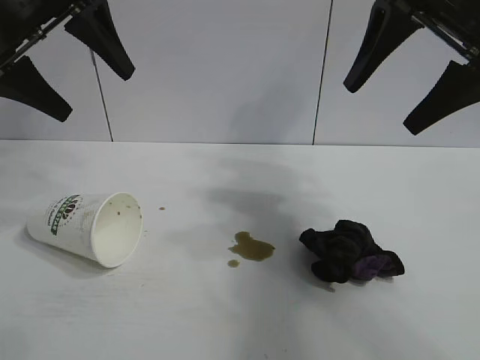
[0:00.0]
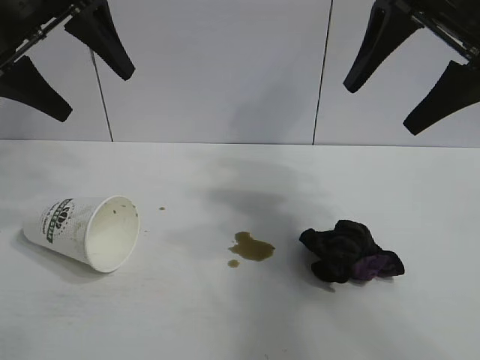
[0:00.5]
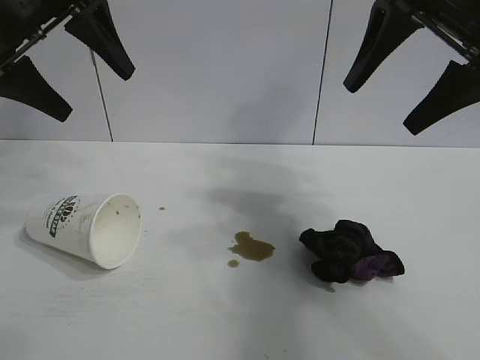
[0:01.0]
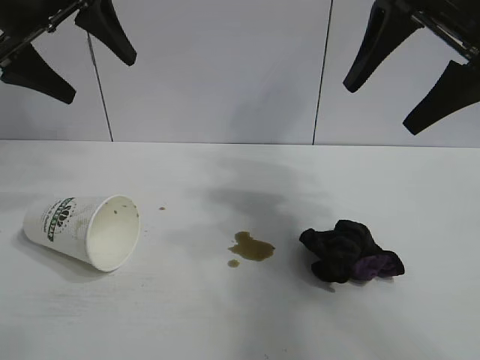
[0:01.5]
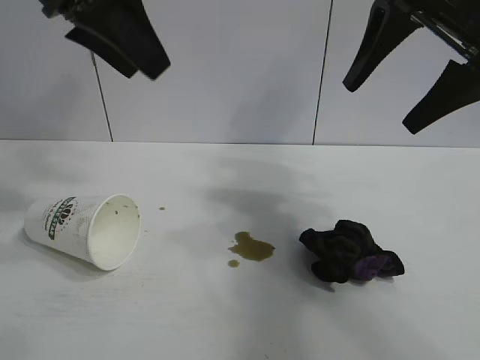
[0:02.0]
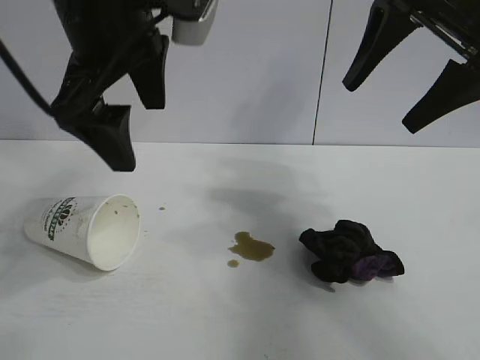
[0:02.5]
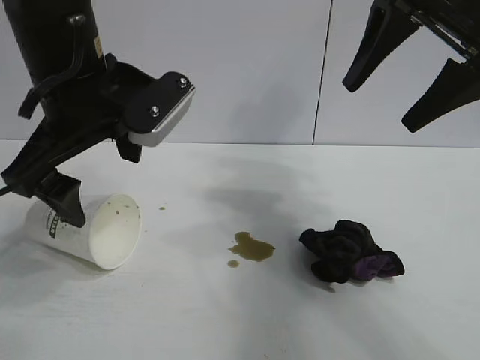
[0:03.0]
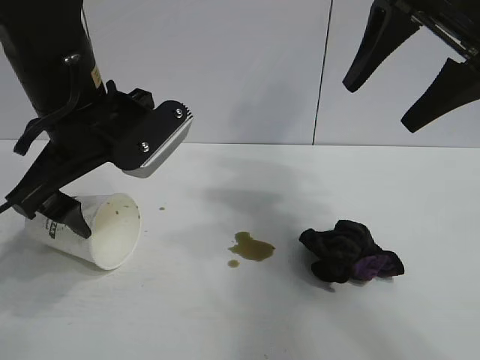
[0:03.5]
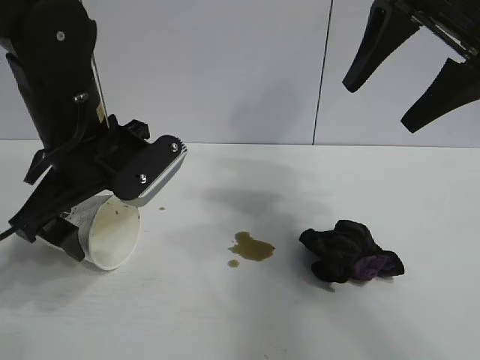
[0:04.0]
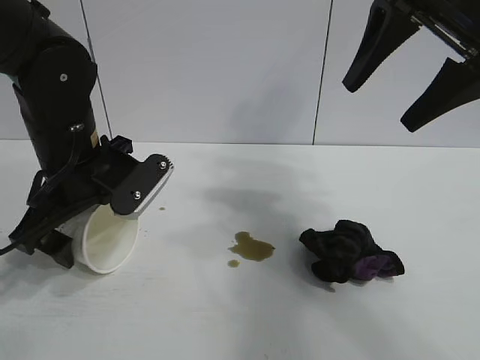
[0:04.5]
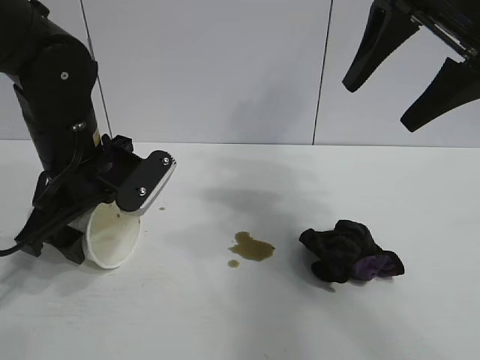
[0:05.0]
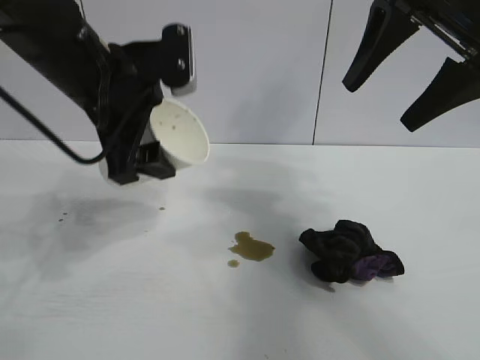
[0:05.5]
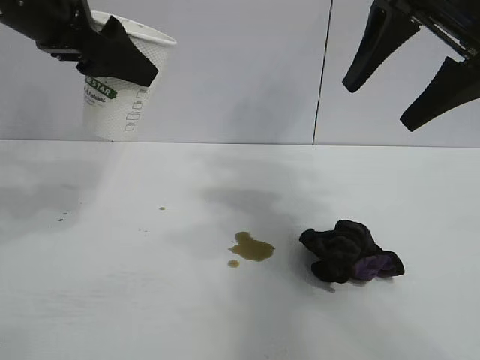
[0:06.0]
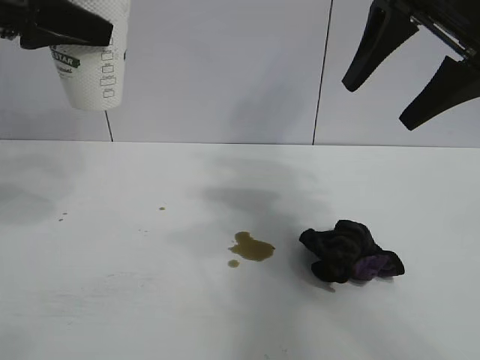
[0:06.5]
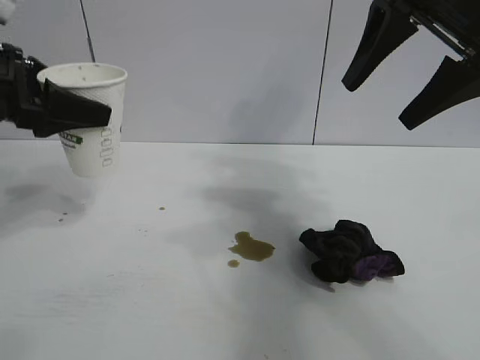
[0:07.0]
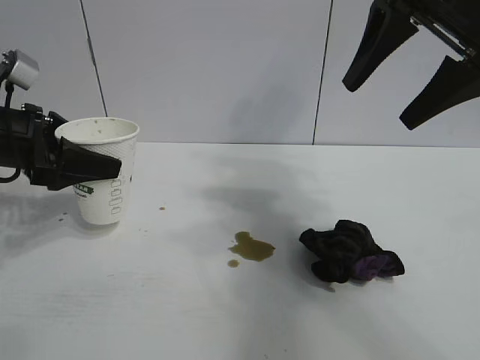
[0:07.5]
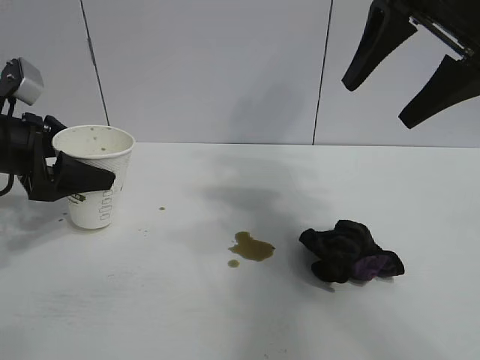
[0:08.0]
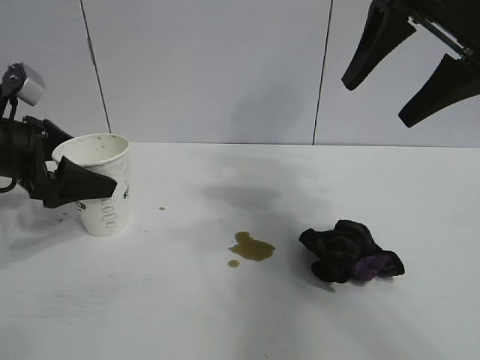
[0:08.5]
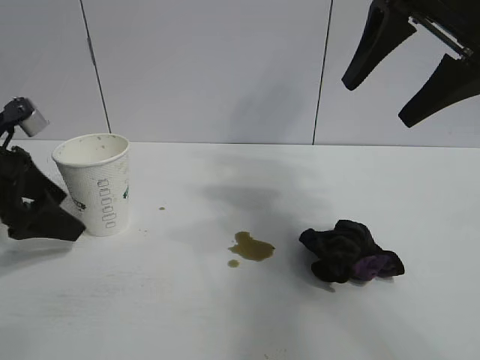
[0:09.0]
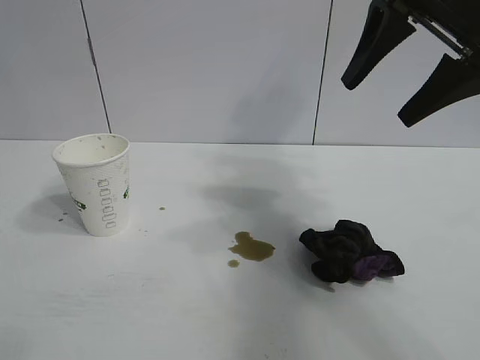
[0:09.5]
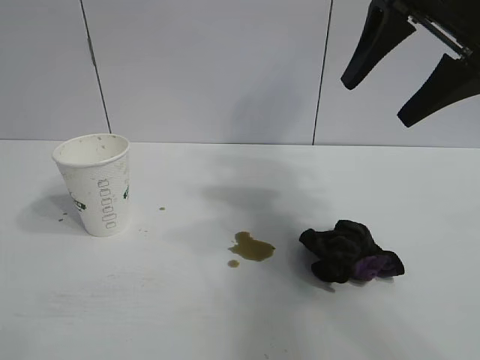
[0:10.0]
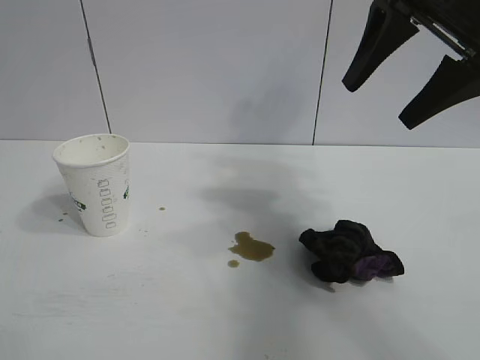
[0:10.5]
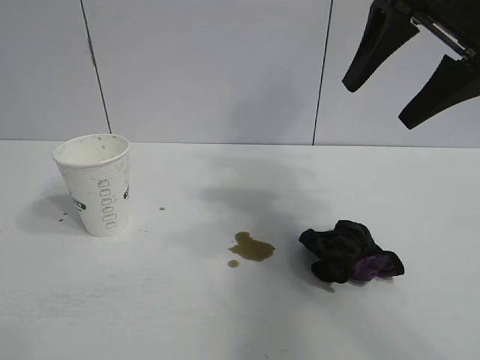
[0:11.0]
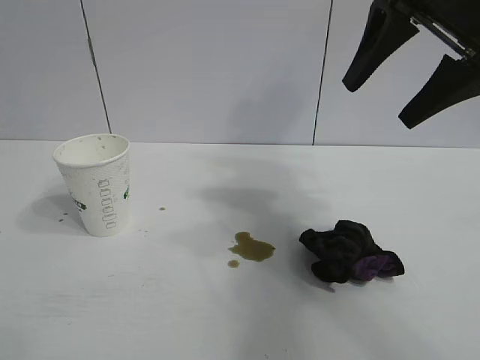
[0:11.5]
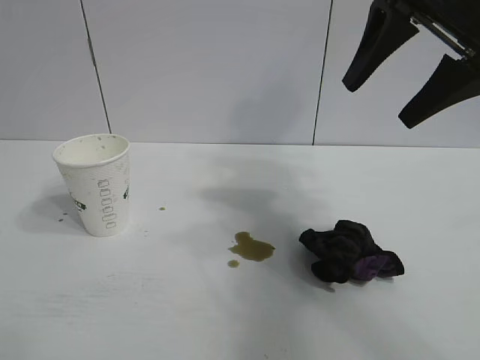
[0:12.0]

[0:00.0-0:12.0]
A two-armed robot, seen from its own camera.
Task of the whole recording: the left gripper pick up the fallen cup and place it upright, the right gripper grasp the black rag and wipe the stain on the table, the right gripper put the black rag back in its original position.
Step, 0:01.5 to 0:05.0: Grasp the paper cup with left gripper.
Step, 0:05.5 to 0:08.0: Stand the paper cup upright with left gripper.

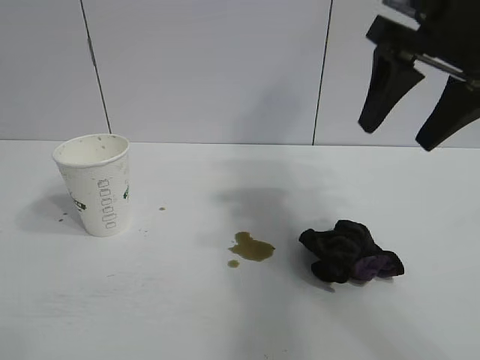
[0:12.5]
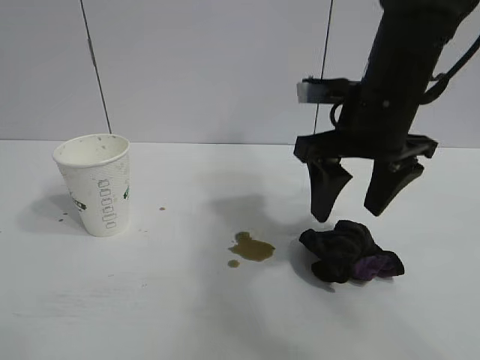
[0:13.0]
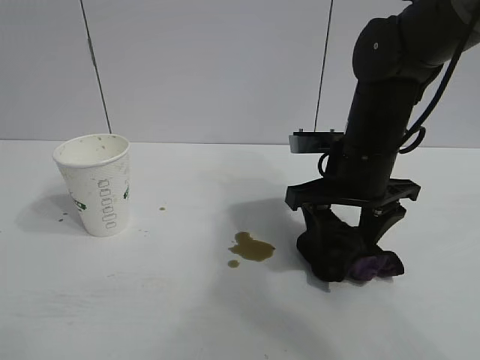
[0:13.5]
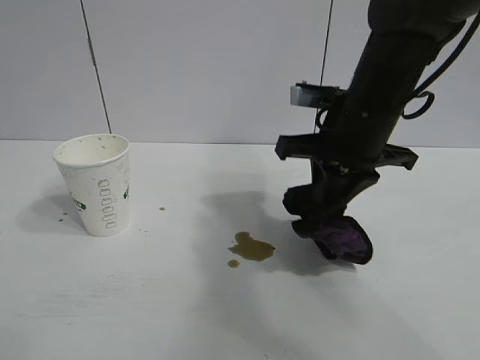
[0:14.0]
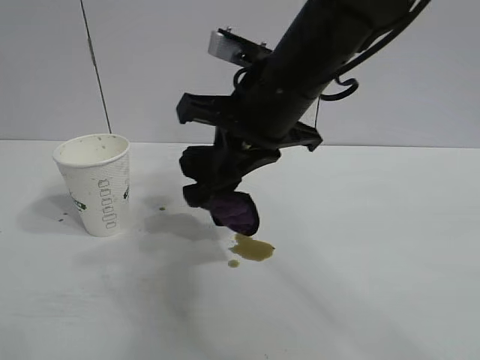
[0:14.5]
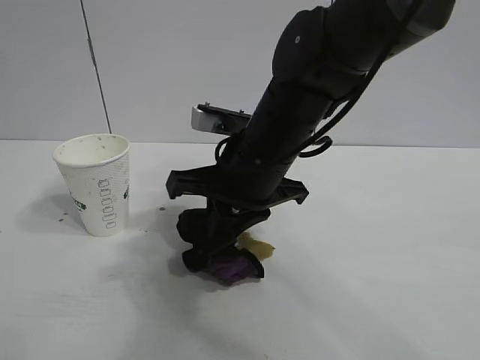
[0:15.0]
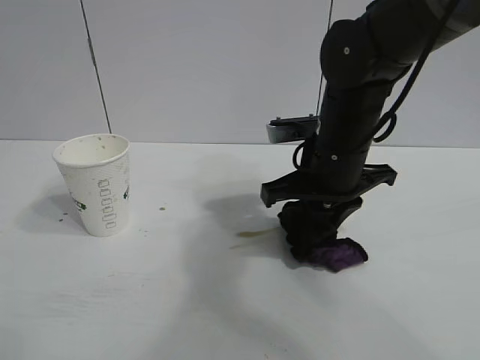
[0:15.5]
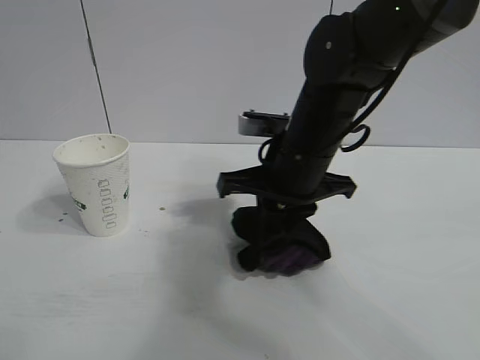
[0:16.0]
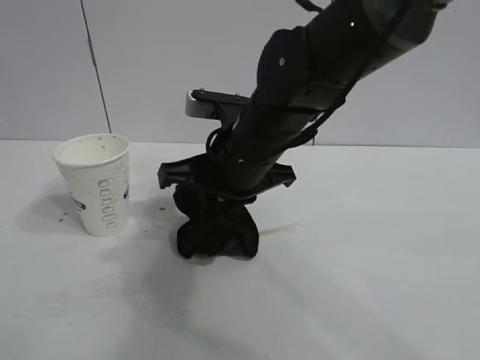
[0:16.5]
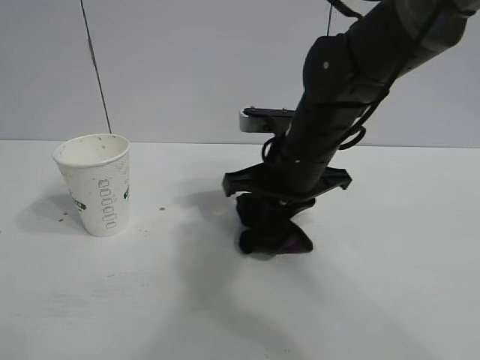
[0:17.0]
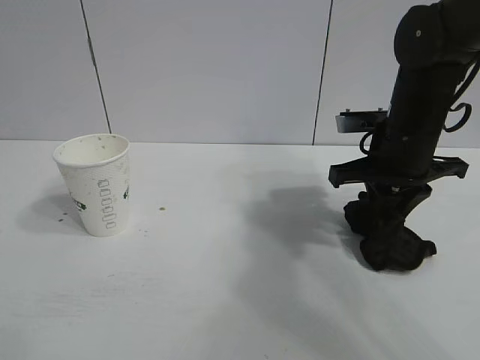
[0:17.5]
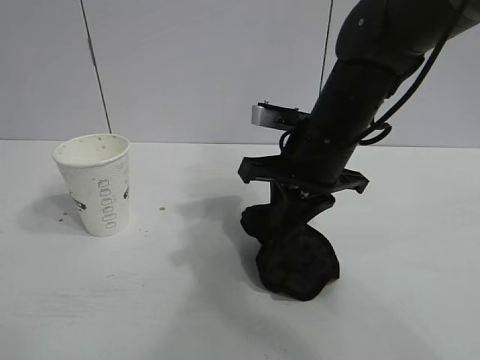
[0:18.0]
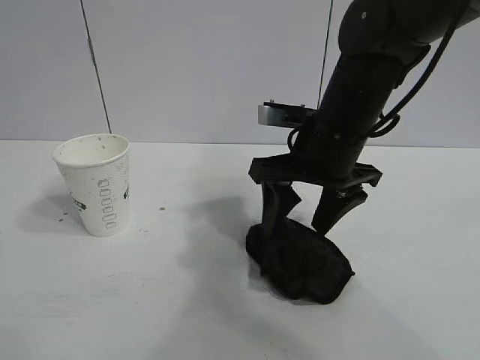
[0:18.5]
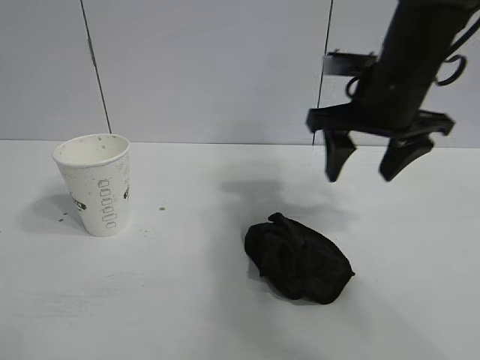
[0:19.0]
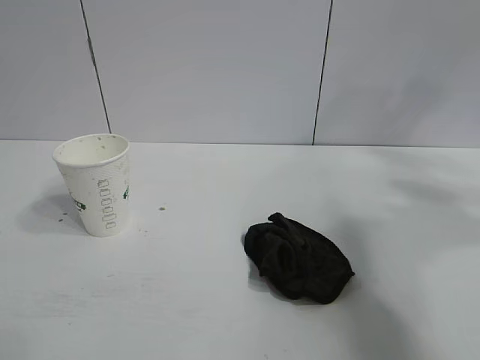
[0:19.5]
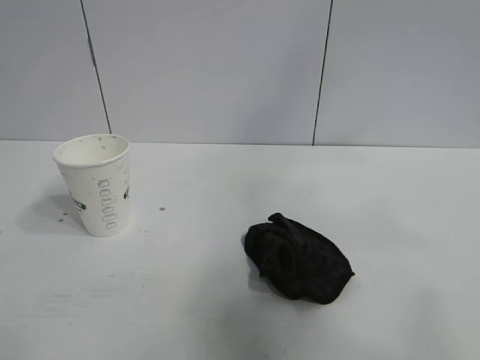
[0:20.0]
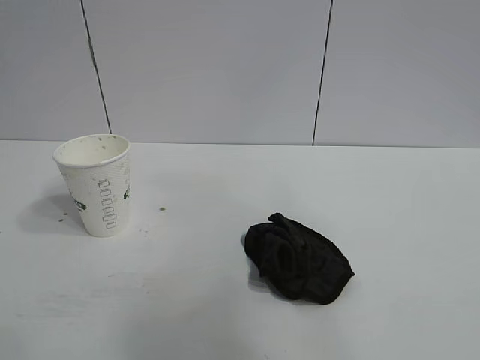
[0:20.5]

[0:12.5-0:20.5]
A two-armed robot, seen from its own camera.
Task of the whole recording: the left gripper pick up the fallen cup and place it upright, the right gripper grasp the black rag and wipe the stain on the table, the right gripper put the black rag back in its original position.
Step, 0:14.0 to 0:17.0: Wipe the stains off the table with the rag with right gripper.
Step, 0:17.5 to 0:18.5: Place the rag on the table with right gripper.
